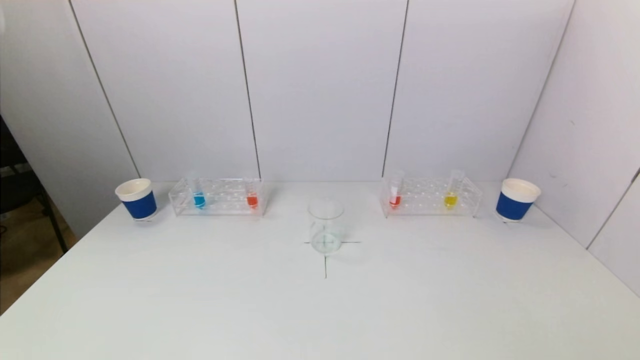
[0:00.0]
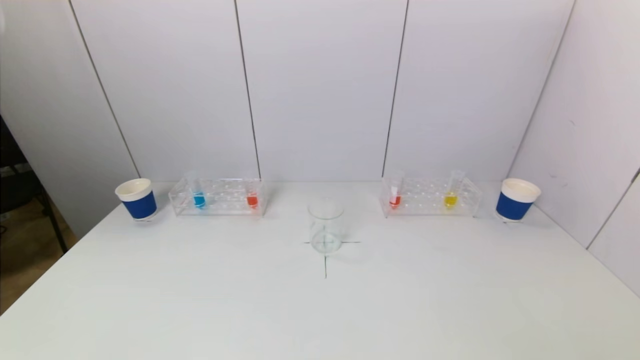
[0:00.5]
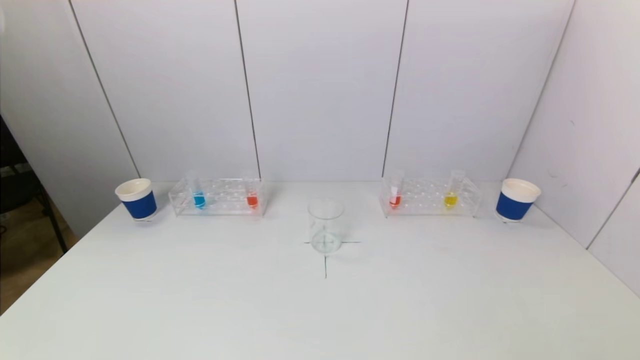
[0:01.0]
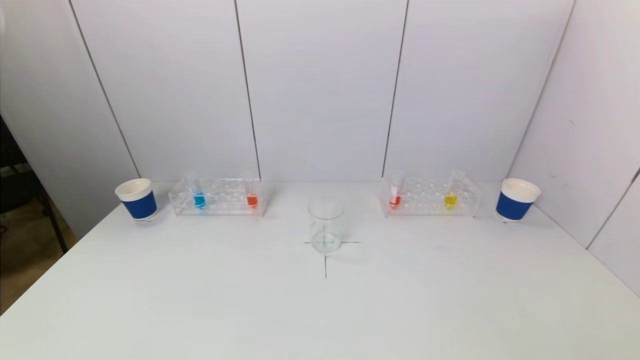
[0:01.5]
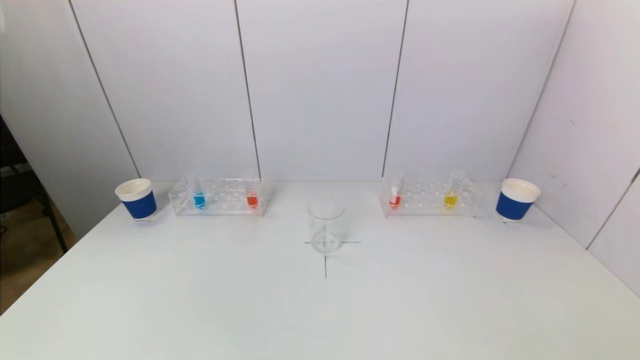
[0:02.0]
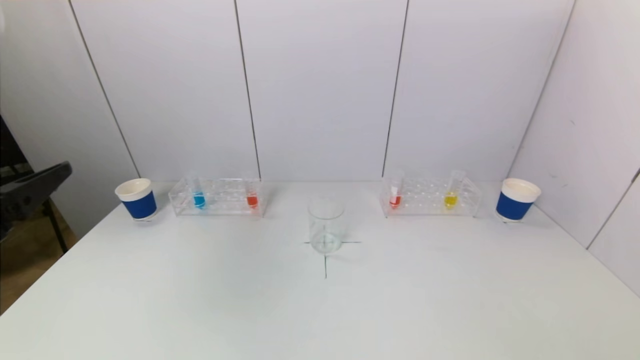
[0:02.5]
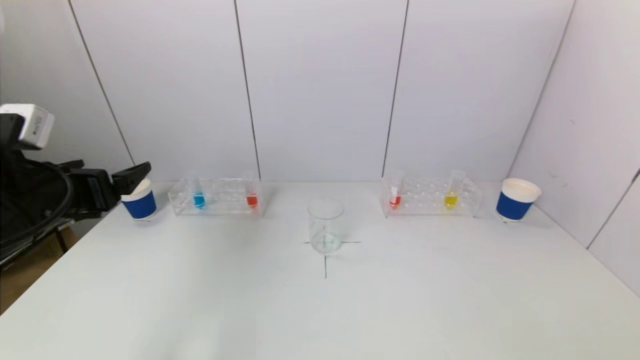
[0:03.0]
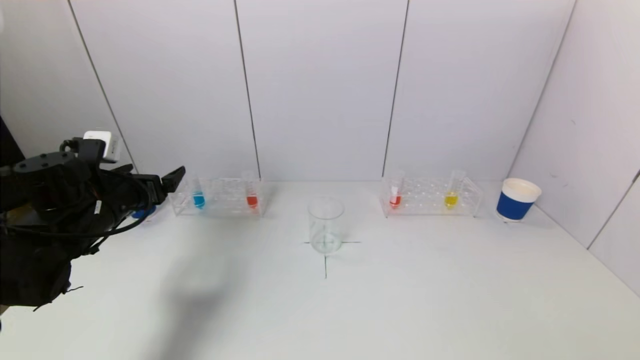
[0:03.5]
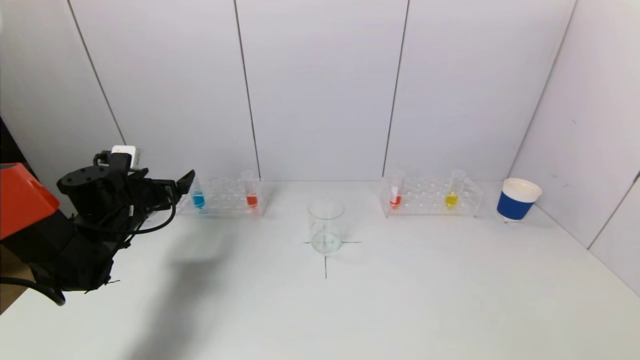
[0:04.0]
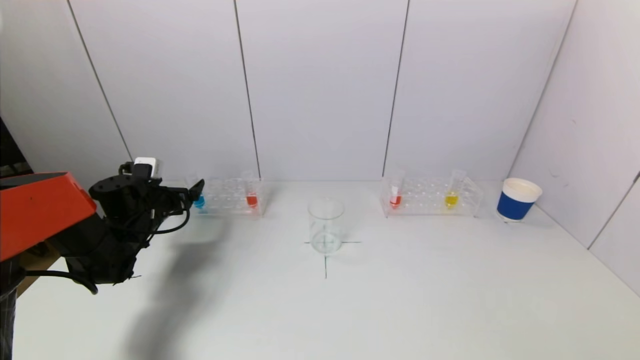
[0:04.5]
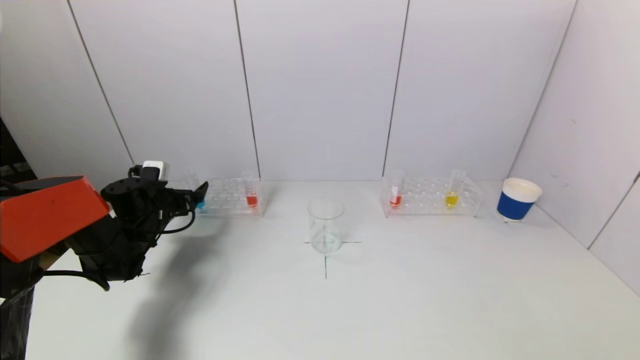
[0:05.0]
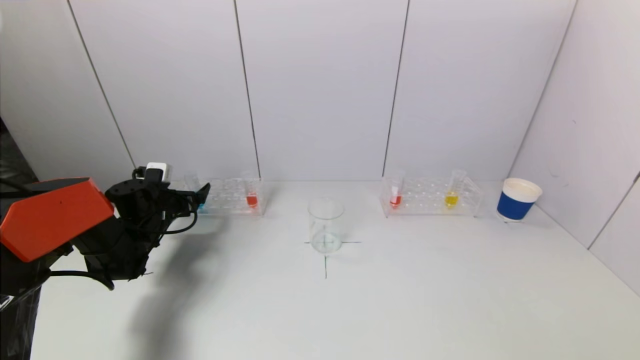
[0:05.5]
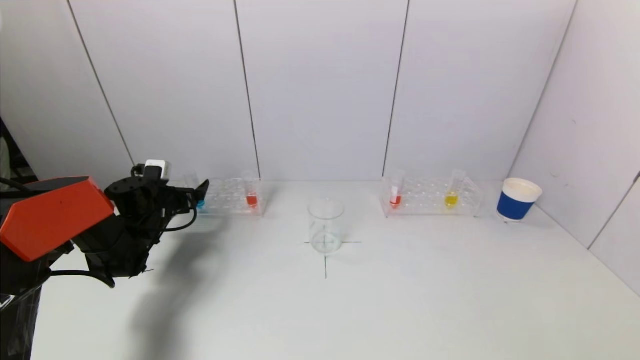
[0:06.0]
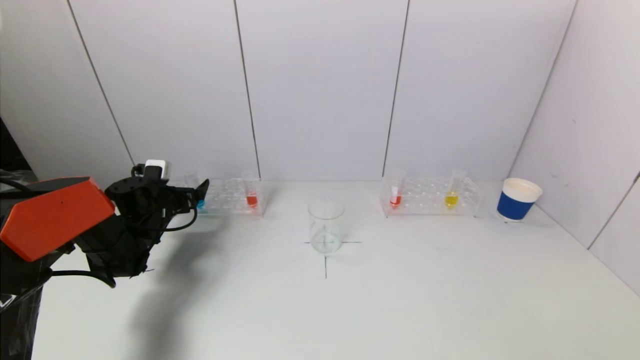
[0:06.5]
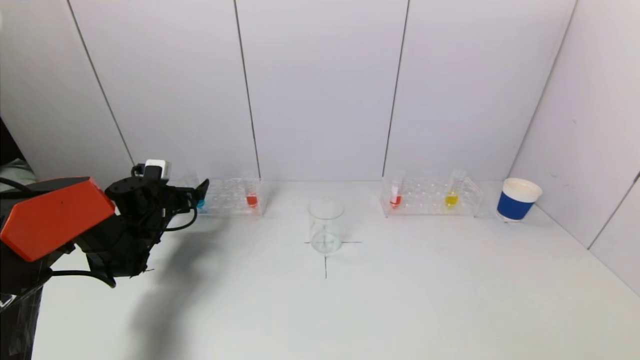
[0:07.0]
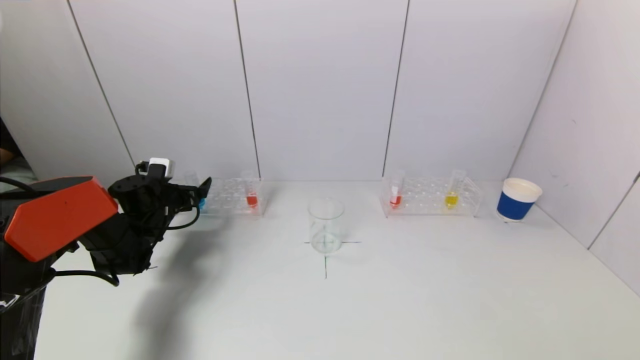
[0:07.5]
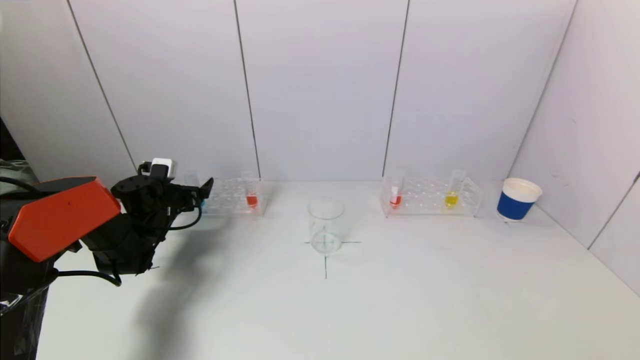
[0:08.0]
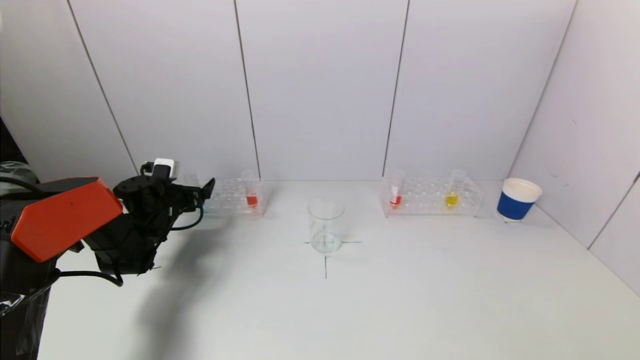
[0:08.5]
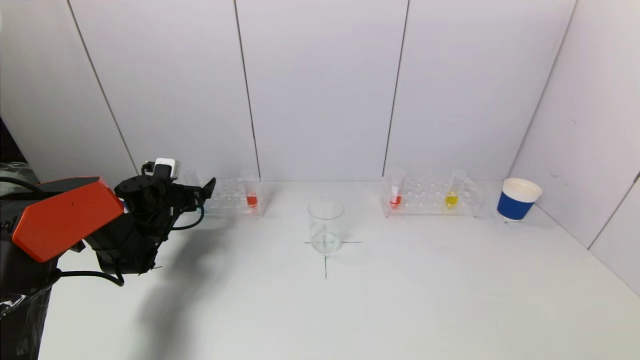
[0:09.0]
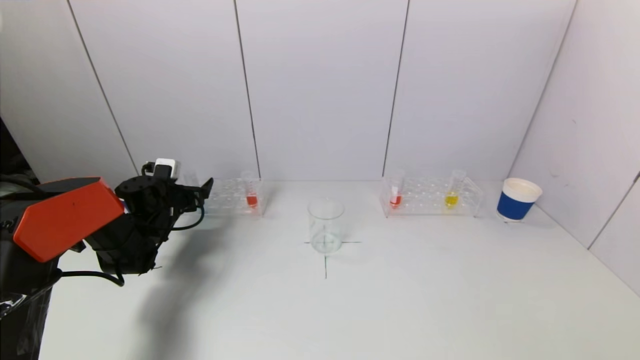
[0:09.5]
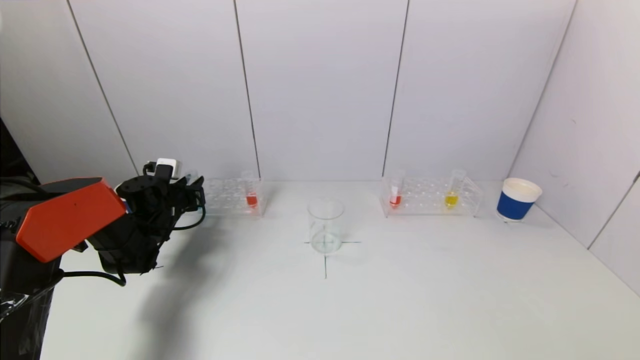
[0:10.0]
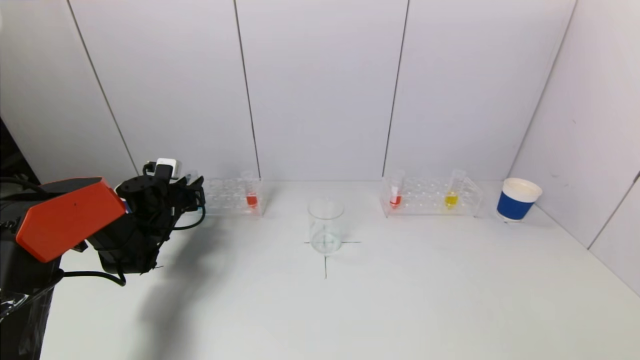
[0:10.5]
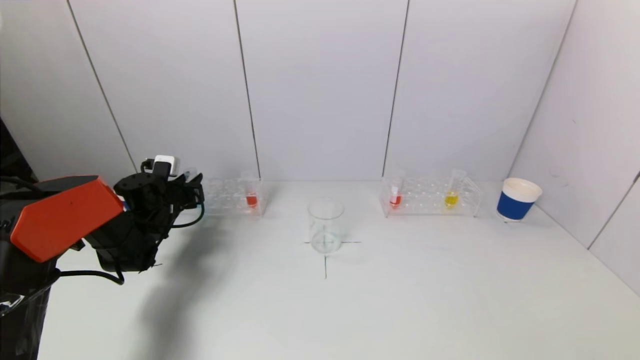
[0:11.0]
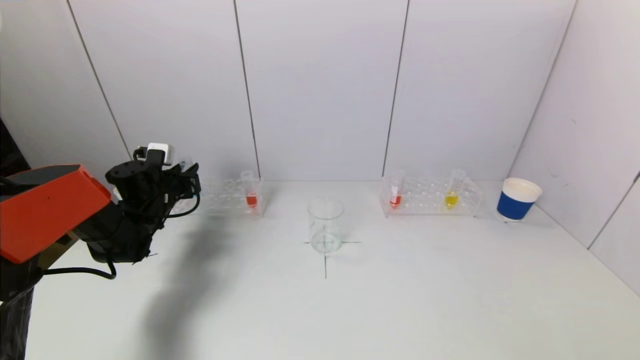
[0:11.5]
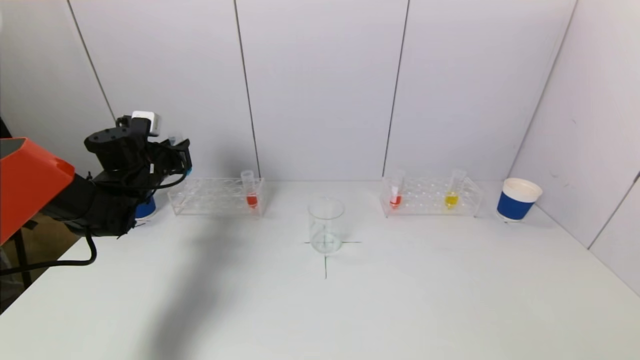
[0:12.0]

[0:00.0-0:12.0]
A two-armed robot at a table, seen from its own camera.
Task of the whole recording: pick up a test tube with pigment on left test tube rack and a test tube with pigment on right test tube rack by grippers and pour them into the beaker.
Step, 0.0 to 10.5 s: Grasp the blue reagent with the left gripper.
2.0 to 4.0 s: The left gripper travels forward and downward by roughly 40 cm.
4.0 to 6.0 s: The left gripper is displaced forward and downward by about 10 cm.
6.0 to 8.0 s: Both grippers stay put.
8.0 to 10.0 s: The left gripper closes its fingers.
10.0 to 12.0 s: The left gripper is displaced upward by approximately 10 cm.

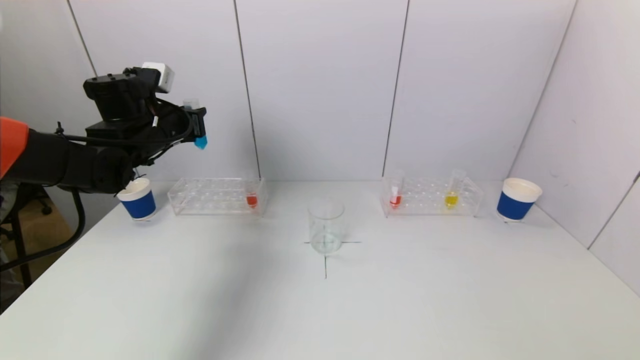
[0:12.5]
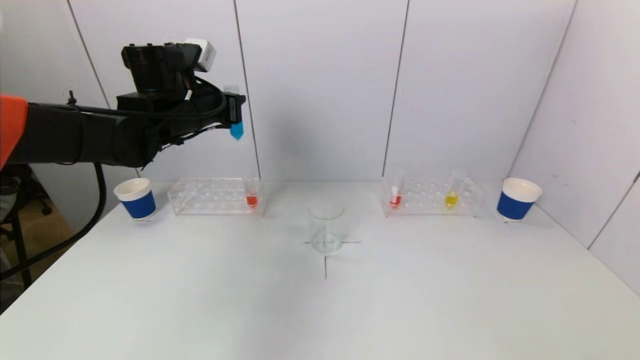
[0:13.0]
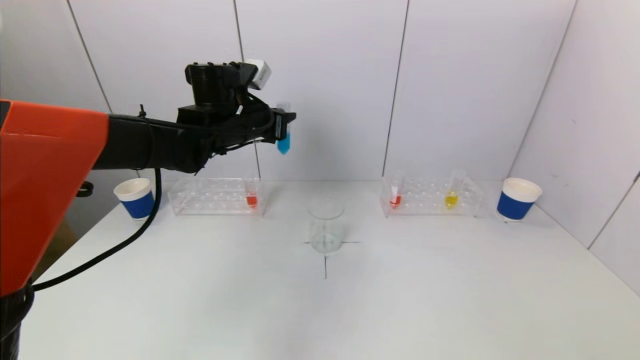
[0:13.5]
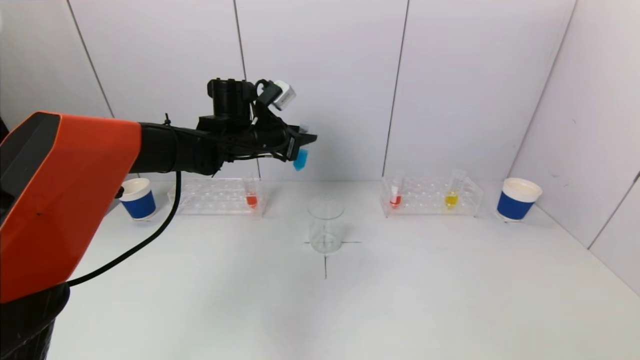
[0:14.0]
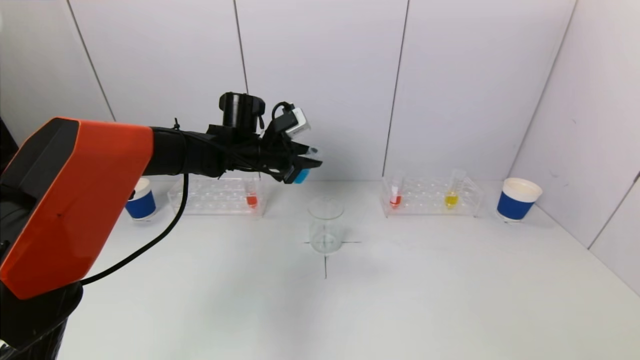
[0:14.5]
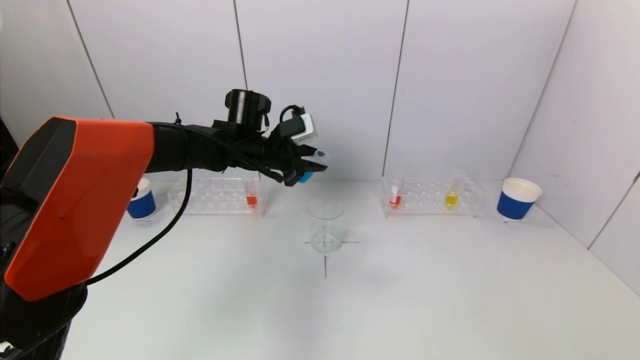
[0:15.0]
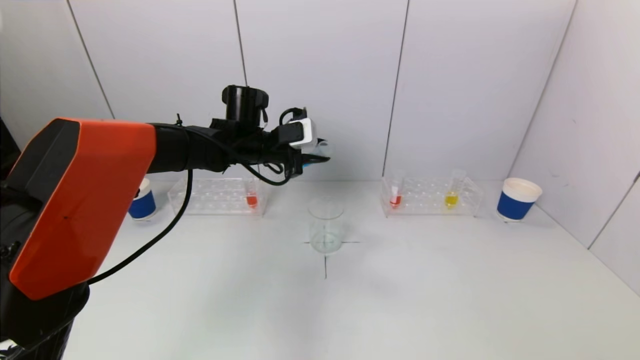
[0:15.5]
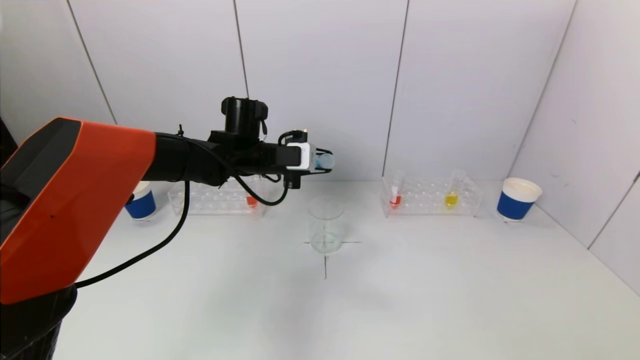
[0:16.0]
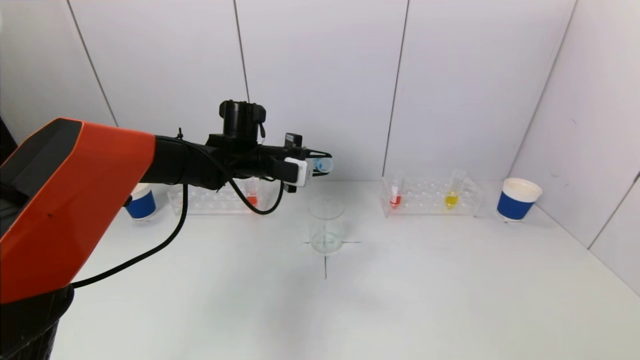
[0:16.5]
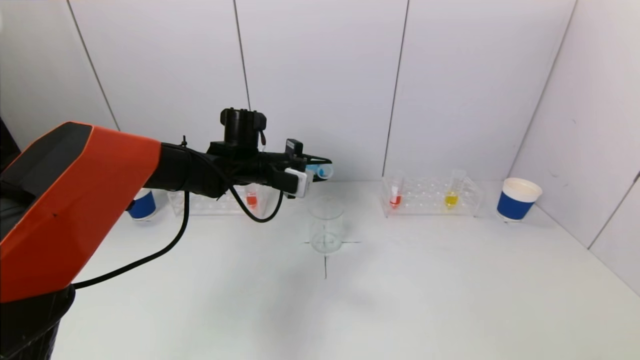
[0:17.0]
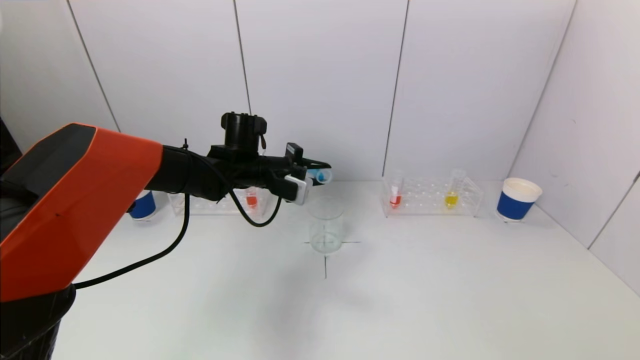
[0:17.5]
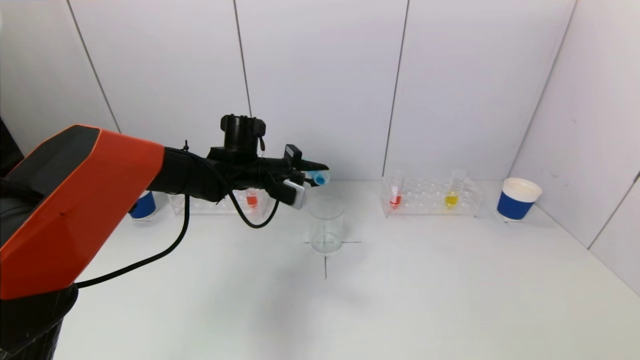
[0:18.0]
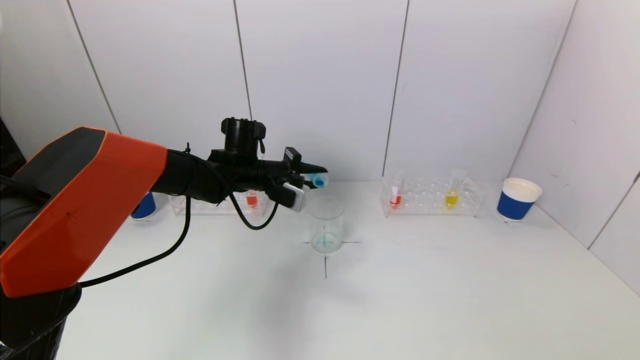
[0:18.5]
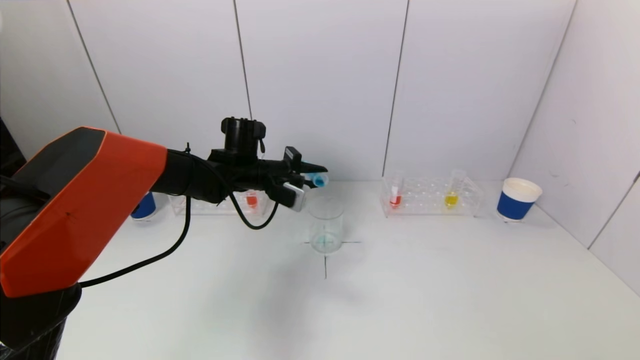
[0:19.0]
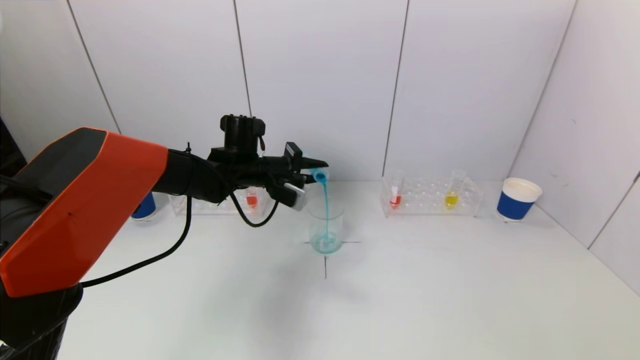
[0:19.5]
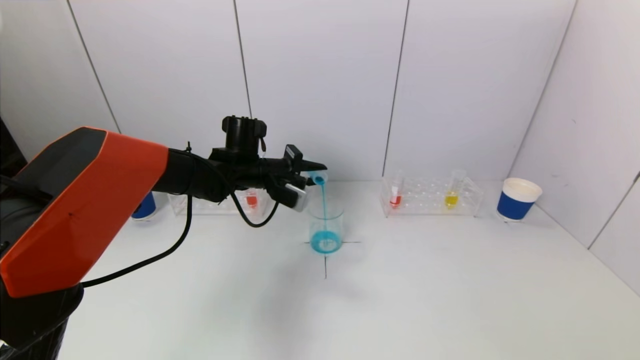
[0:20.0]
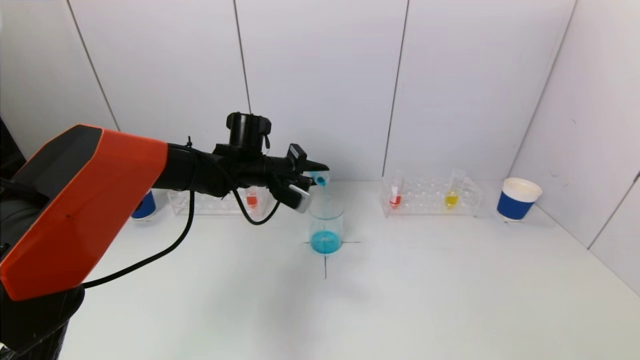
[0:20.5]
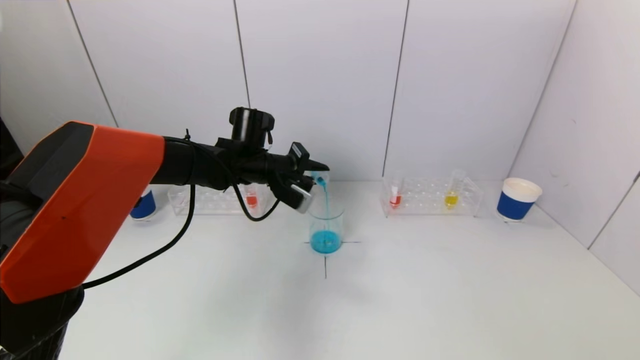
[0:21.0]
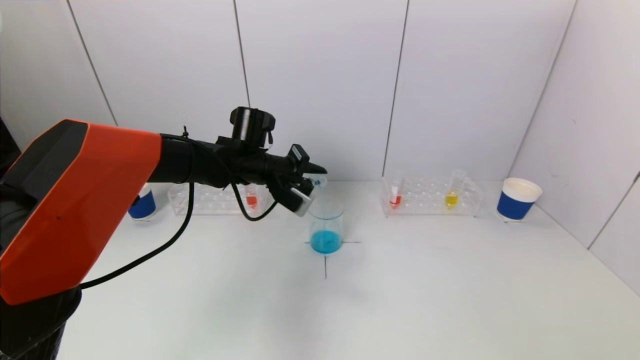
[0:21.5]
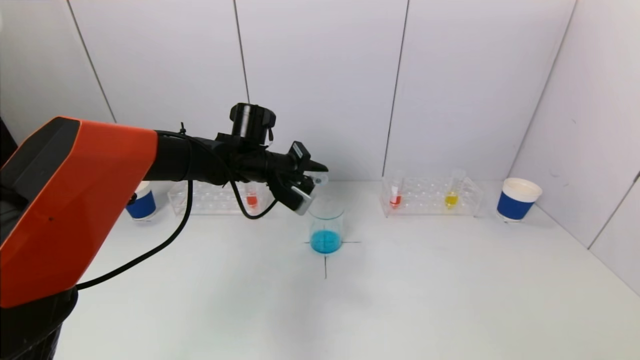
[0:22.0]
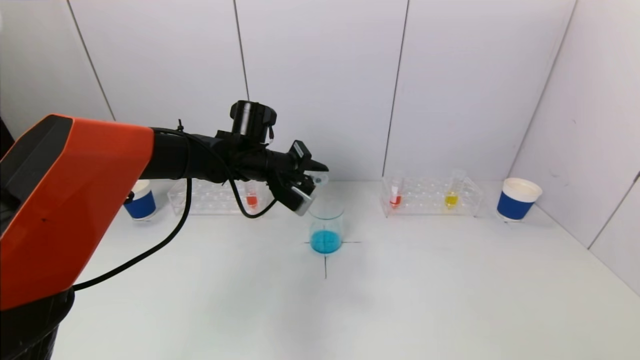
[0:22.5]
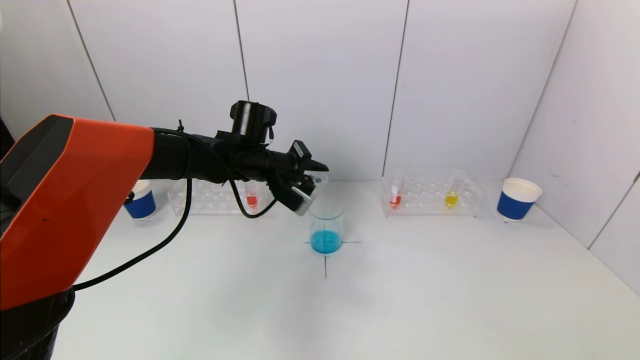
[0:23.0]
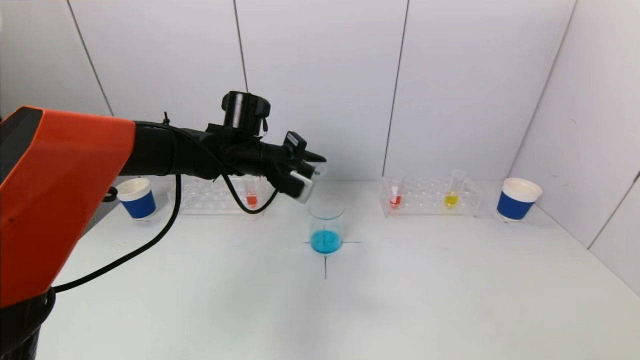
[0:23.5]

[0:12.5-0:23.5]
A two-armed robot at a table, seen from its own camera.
Task of the whole recording: pick up a test tube with pigment on left test tube rack and a test tube with pigment on right test tube rack by grippers and pour them into the beaker.
Step, 12.5 to 22.0 s: Pour the blue reagent into the graduated cylinder with the left gripper.
12.5 to 14.5 s: The left gripper goes approximately 15 cm to the right.
18.0 to 23.5 s: The grippers stay close to where they were, moving slightly.
